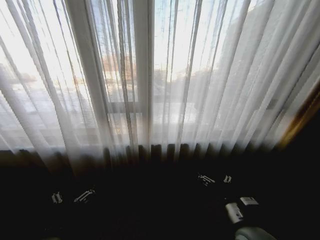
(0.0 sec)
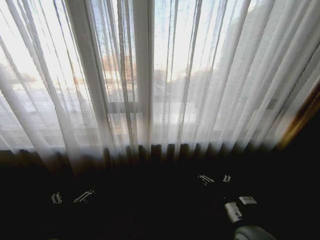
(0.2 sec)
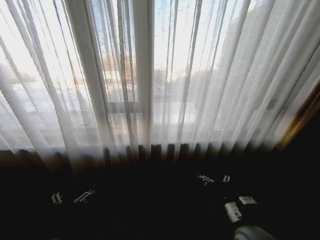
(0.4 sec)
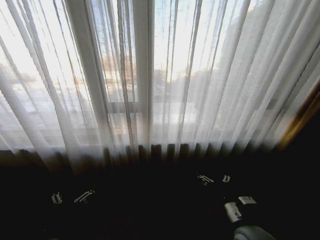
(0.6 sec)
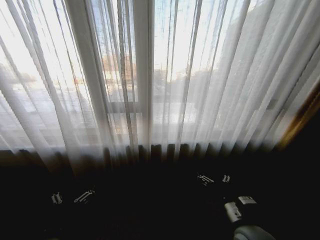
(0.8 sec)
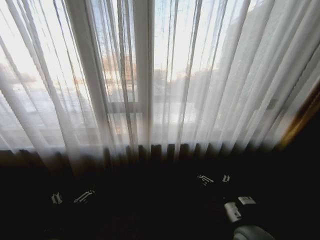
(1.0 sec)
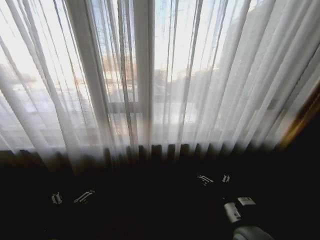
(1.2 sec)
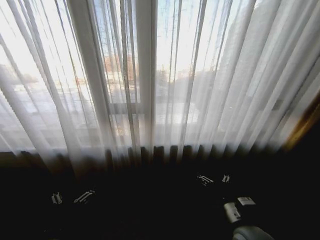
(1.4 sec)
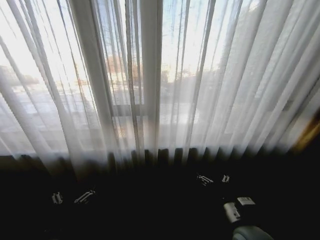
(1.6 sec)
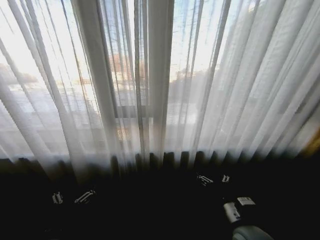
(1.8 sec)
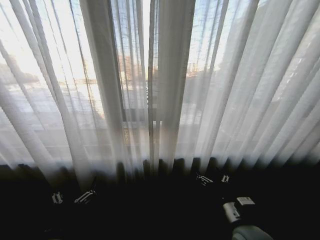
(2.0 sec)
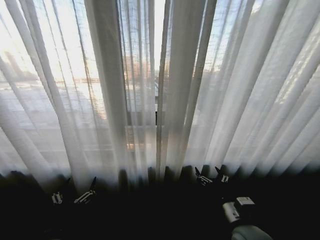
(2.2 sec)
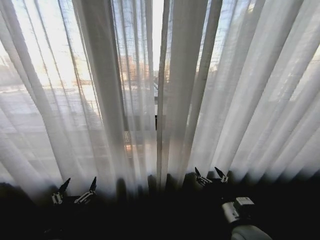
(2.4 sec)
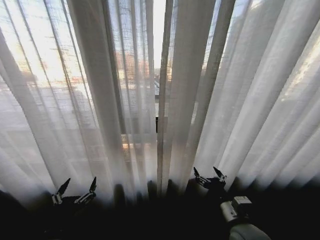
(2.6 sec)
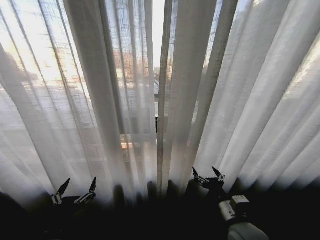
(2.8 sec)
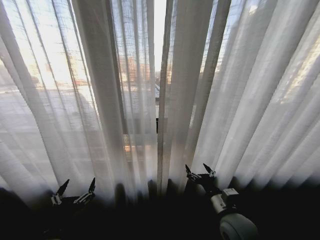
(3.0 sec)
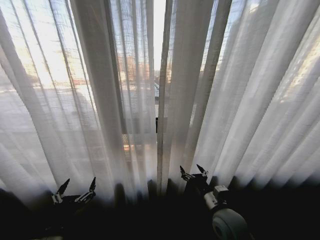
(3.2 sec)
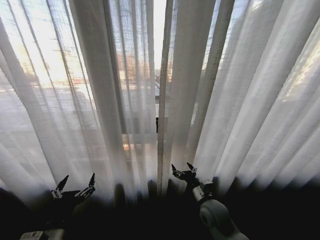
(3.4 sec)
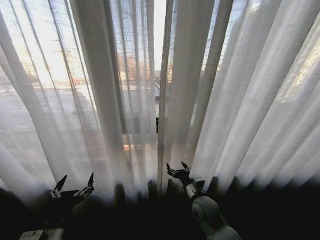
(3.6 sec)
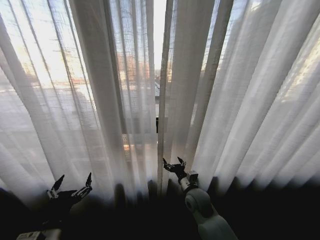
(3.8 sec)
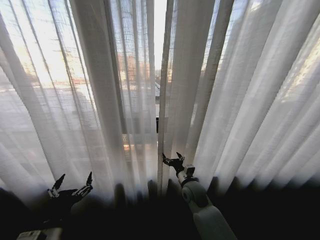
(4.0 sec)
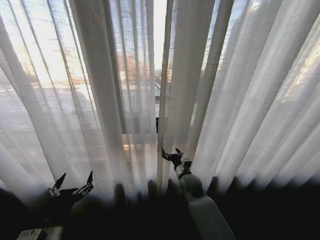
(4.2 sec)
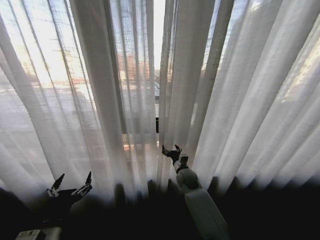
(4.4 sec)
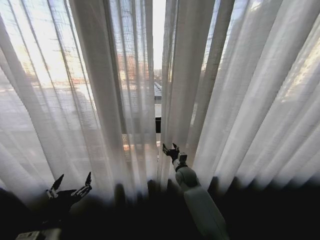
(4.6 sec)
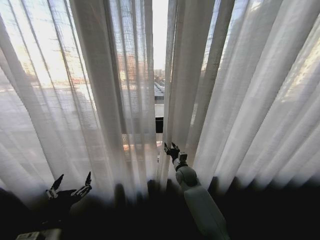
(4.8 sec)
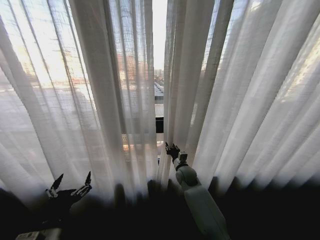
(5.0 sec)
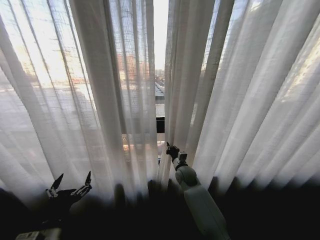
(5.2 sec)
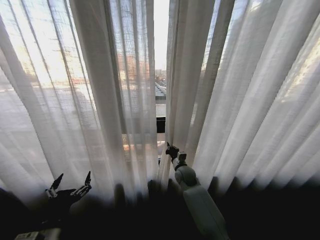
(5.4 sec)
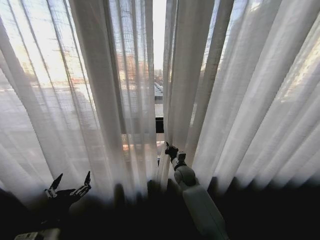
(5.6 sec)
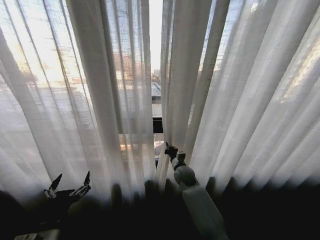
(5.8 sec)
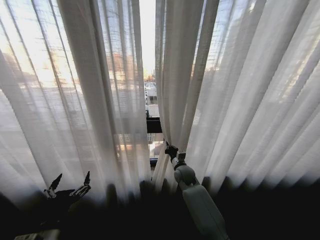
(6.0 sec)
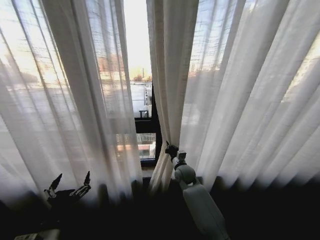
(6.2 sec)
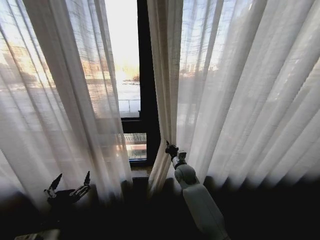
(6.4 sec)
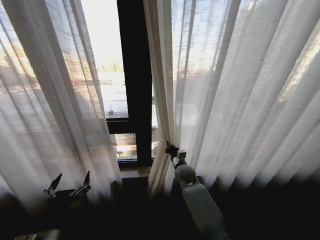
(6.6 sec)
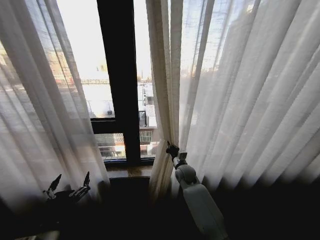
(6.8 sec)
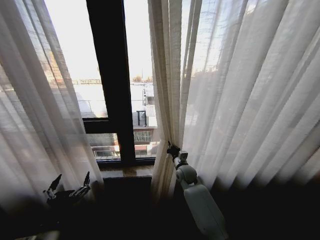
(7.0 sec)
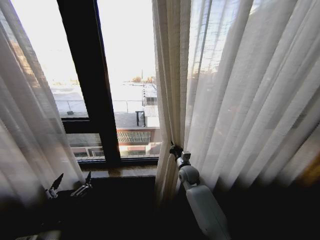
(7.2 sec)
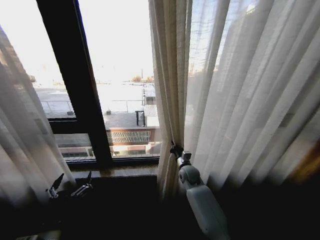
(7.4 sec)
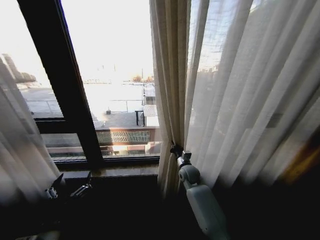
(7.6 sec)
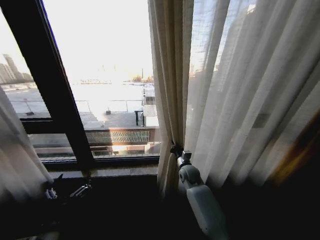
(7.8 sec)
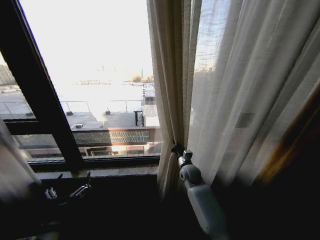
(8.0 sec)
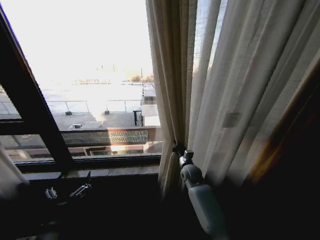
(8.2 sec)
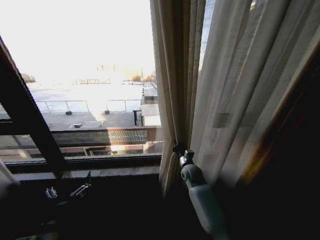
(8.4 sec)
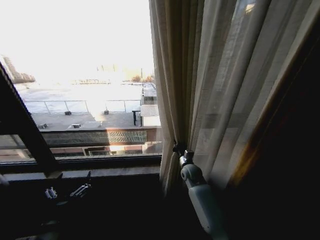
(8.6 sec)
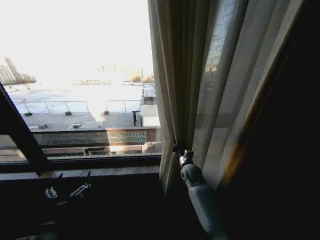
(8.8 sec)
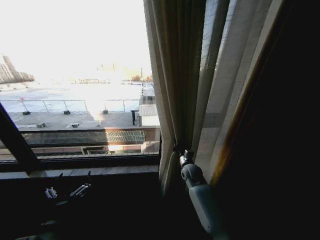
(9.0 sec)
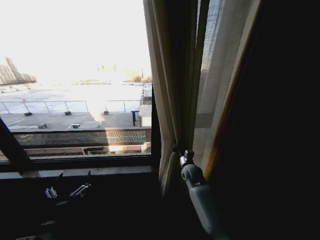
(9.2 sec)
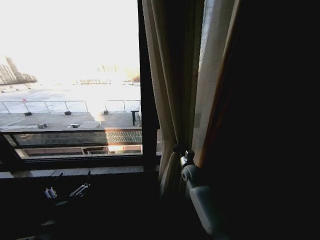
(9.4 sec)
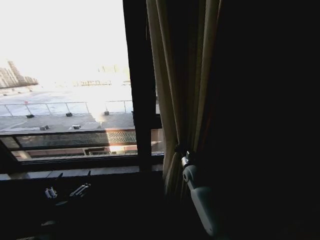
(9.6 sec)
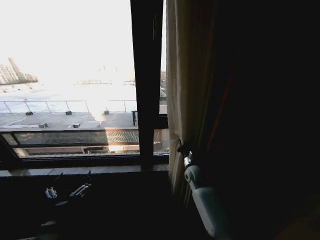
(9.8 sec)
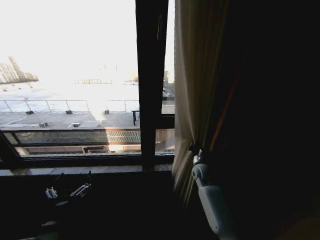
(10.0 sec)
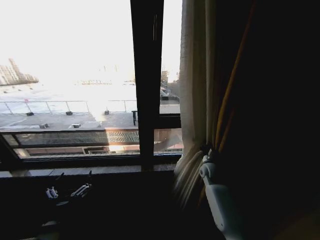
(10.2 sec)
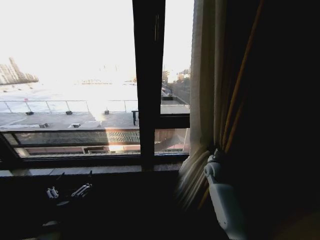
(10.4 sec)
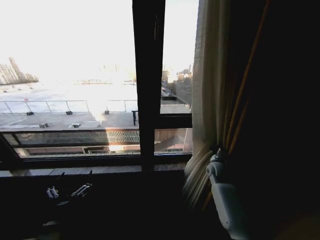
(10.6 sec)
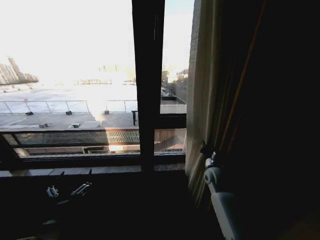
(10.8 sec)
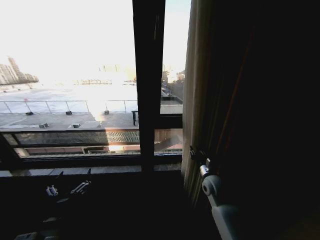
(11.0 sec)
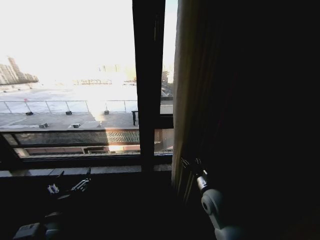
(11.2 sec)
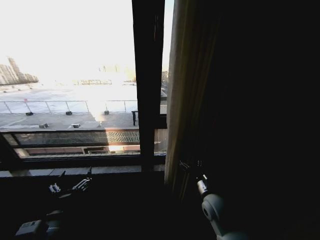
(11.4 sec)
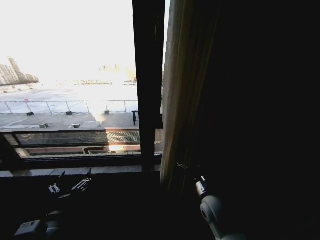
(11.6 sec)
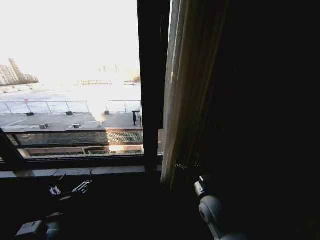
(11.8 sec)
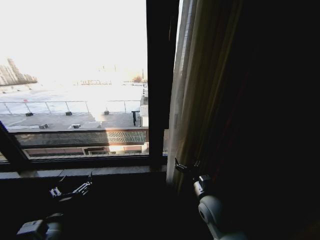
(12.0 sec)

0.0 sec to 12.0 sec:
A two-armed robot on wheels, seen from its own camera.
Task of the whole recording: Open the curtains by pulling them apart, changing their state from closed to fully open.
3.0 sec to 4.4 sec: The right gripper goes some 25 cm forward and to the left.
4.4 sec to 6.0 sec: The right gripper closes.
9.0 sec to 10.4 sec: The right gripper heads to the right, covering about 10 cm.
10.4 sec to 12.0 sec: The right gripper shifts about 20 cm backward and to the left, and opens up.

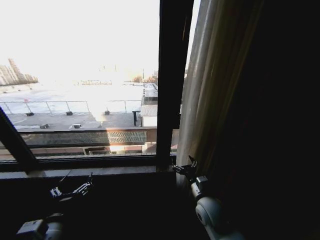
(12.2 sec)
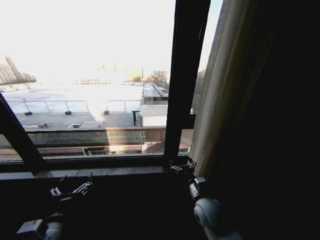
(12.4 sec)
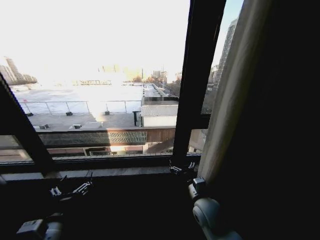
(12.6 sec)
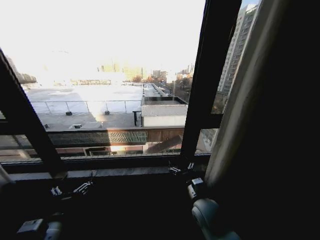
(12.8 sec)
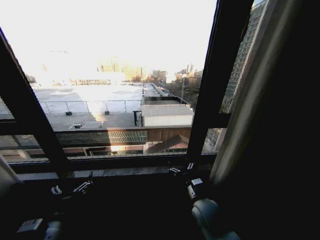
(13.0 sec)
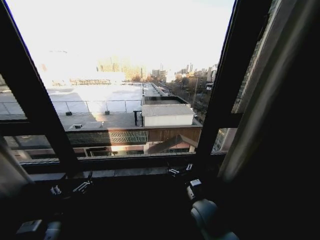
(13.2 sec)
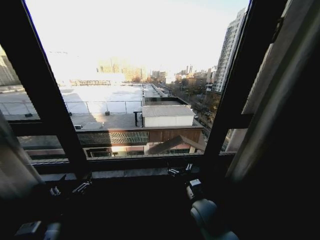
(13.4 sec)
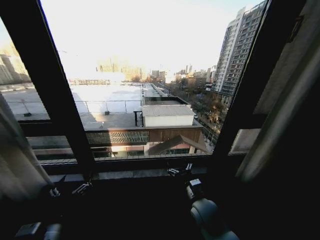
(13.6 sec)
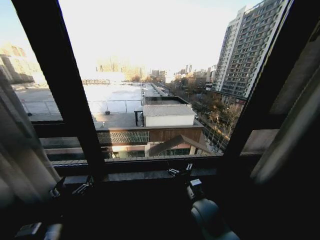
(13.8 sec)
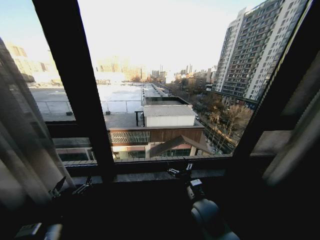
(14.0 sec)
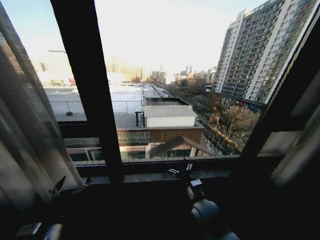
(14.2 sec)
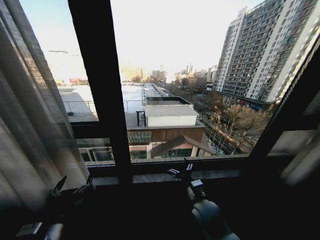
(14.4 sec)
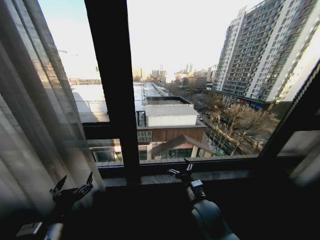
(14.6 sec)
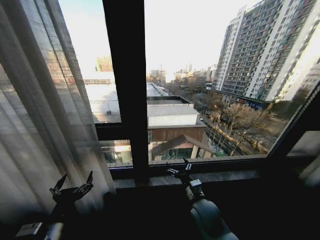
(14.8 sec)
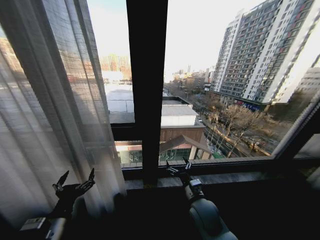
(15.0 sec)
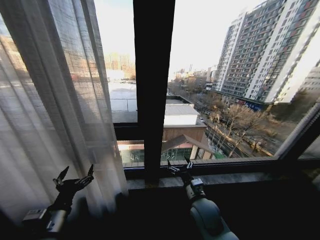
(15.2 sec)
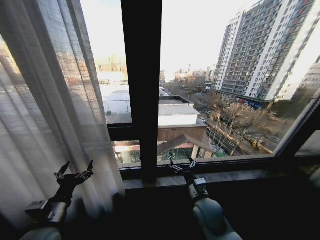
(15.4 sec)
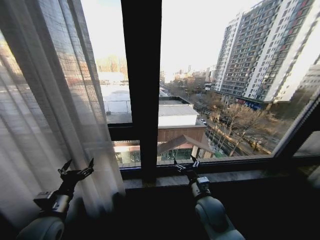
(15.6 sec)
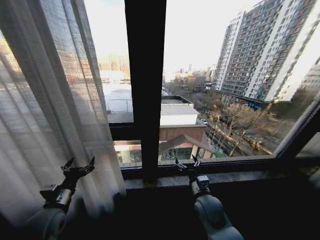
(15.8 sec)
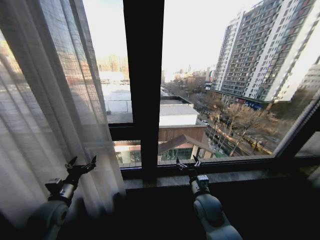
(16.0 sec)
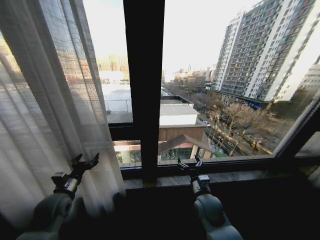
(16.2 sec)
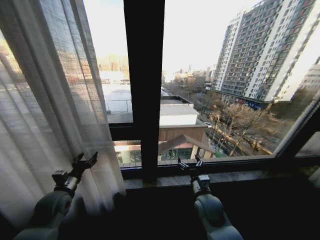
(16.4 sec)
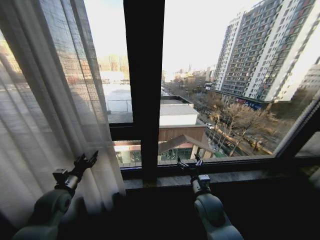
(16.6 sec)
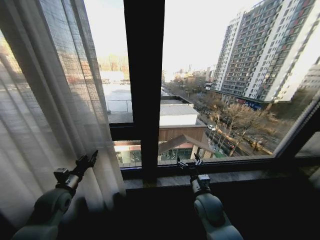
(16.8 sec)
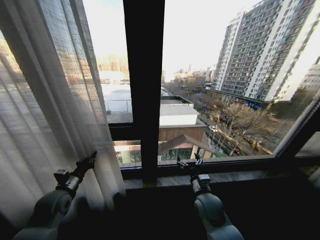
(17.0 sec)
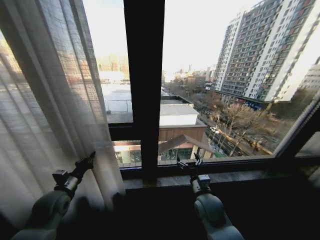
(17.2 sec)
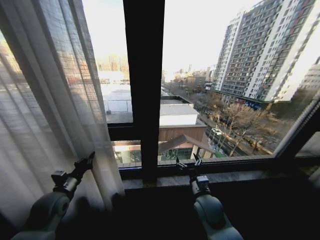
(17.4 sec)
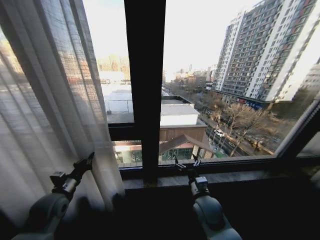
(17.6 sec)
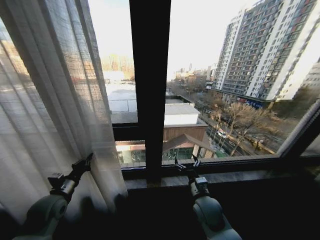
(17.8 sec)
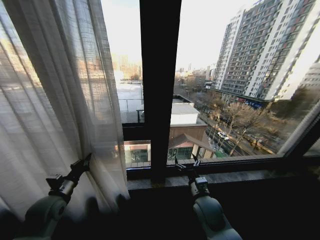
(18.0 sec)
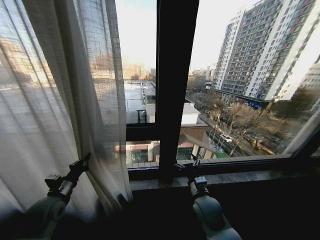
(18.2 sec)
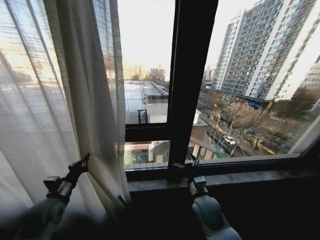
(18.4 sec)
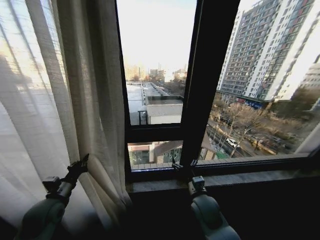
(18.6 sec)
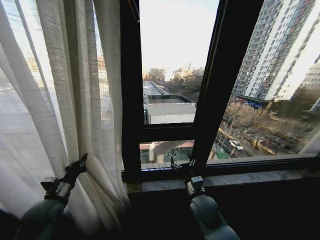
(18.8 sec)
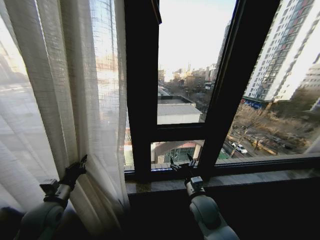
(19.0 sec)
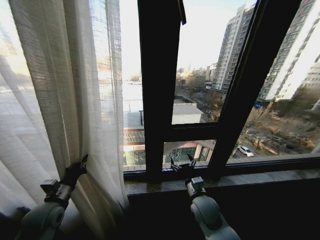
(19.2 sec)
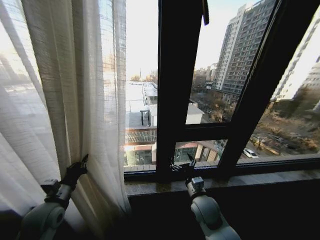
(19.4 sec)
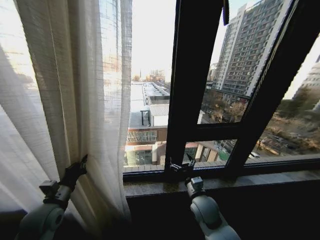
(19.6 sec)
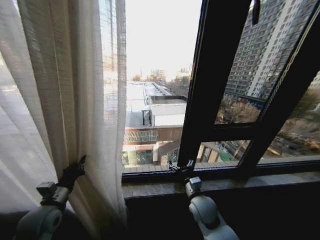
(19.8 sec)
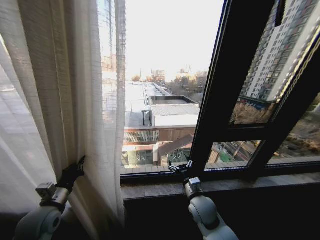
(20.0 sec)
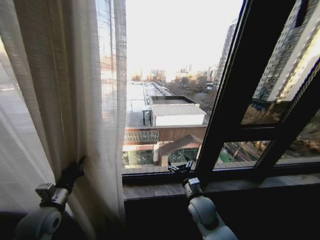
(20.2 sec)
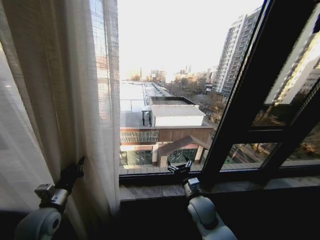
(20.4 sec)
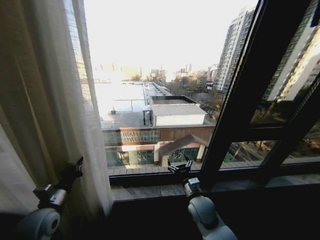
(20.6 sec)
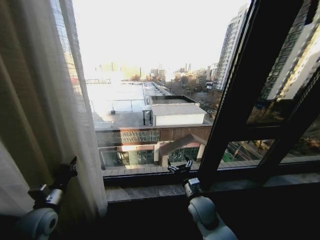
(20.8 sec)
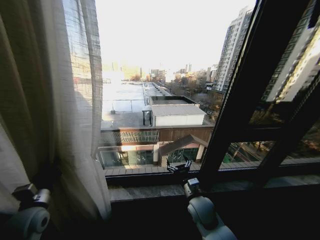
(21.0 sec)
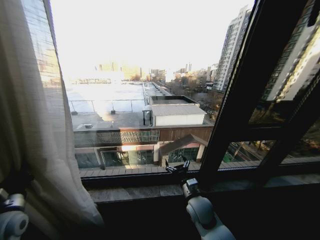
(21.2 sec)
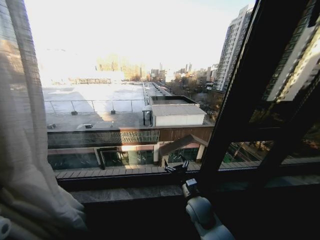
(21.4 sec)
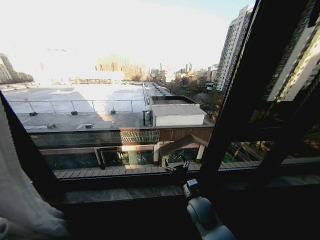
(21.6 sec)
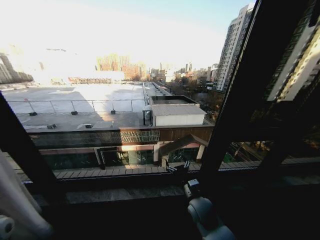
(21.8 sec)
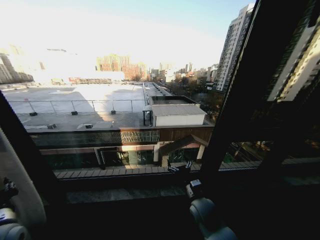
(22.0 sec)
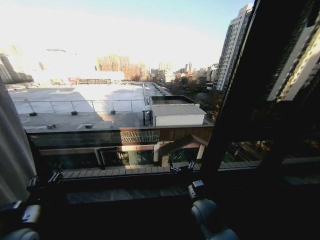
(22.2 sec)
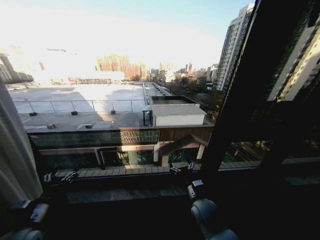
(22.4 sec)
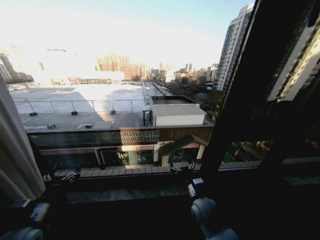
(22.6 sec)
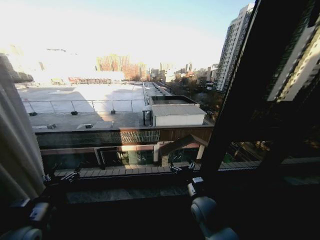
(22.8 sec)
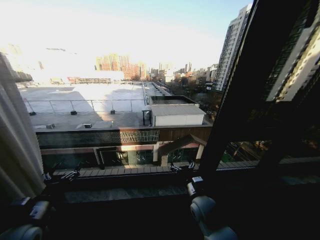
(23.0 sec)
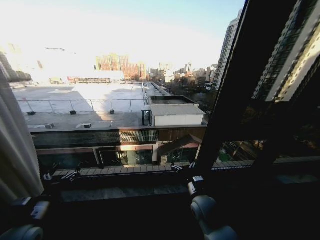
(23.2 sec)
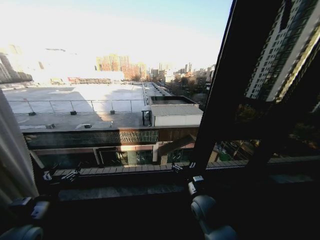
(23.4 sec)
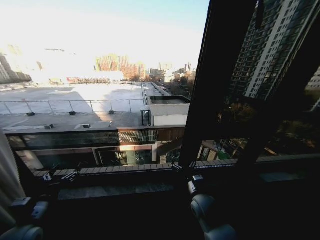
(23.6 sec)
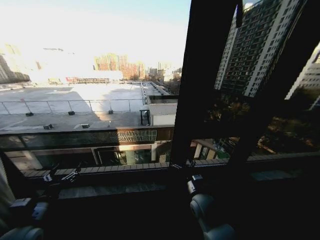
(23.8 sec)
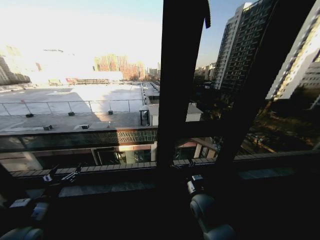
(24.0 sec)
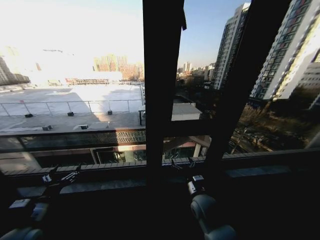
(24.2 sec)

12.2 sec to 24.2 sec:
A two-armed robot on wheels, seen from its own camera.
Task of the whole recording: Open the curtains by pulling them apart, changing their state from closed to fully open.
15.2 sec to 16.6 sec: The left gripper moves forward and to the left, about 15 cm, and closes.
16.6 sec to 18.2 sec: The left gripper closes its fingers.
19.8 sec to 21.2 sec: The left gripper goes about 10 cm to the left.
21.2 sec to 22.6 sec: The left gripper goes approximately 5 cm to the right, and opens up.
